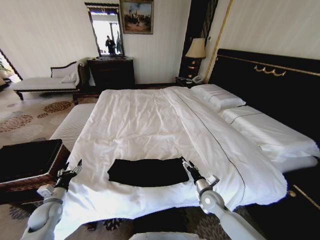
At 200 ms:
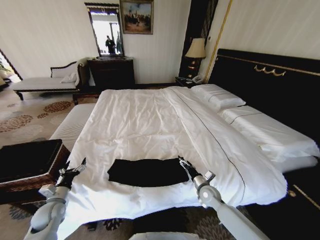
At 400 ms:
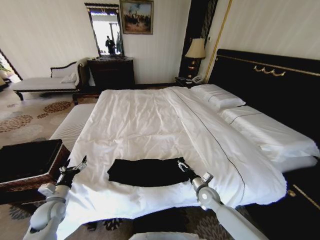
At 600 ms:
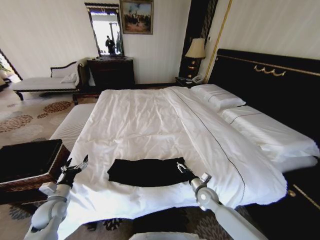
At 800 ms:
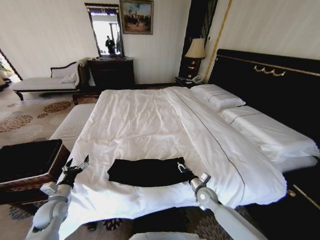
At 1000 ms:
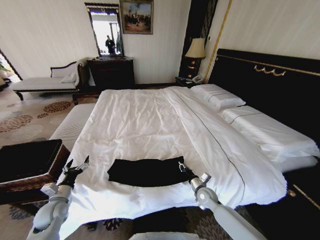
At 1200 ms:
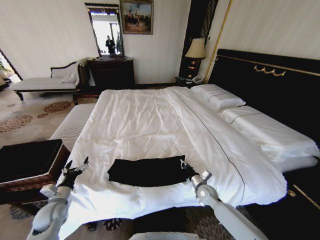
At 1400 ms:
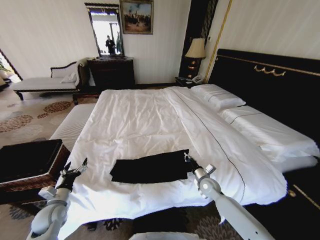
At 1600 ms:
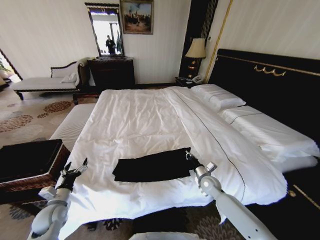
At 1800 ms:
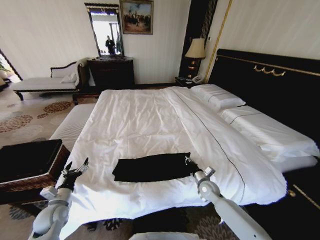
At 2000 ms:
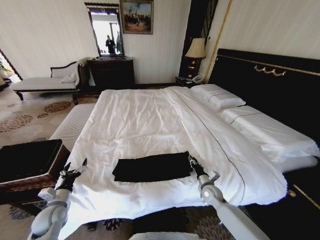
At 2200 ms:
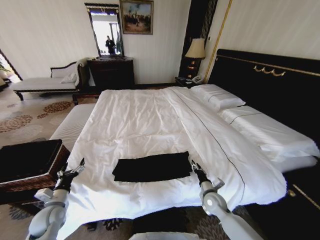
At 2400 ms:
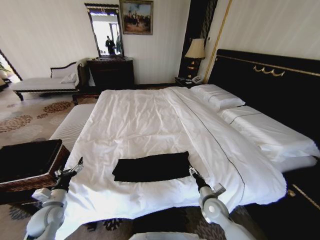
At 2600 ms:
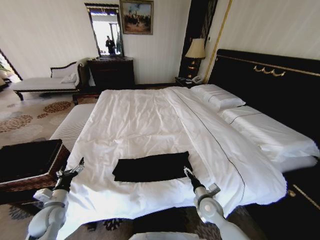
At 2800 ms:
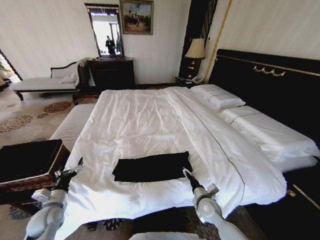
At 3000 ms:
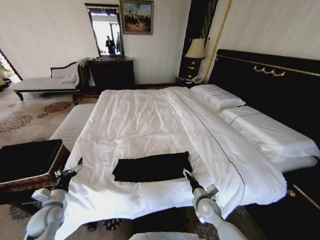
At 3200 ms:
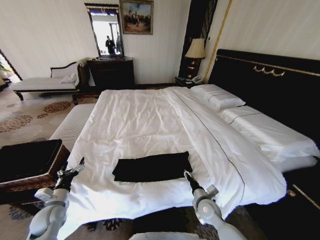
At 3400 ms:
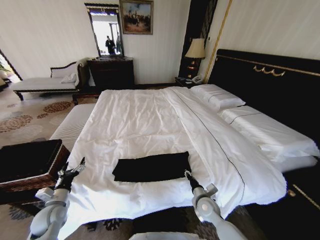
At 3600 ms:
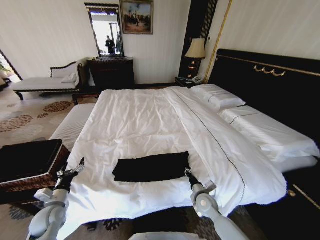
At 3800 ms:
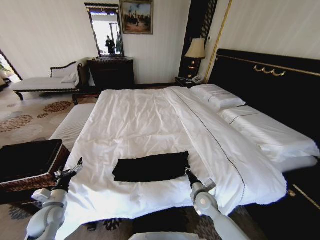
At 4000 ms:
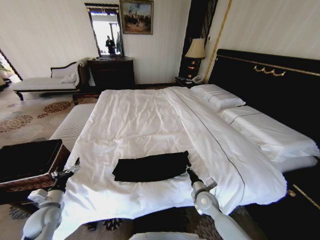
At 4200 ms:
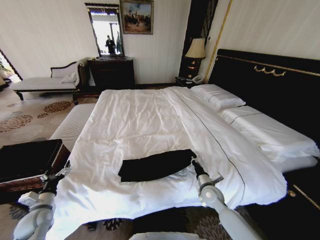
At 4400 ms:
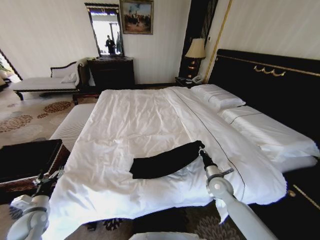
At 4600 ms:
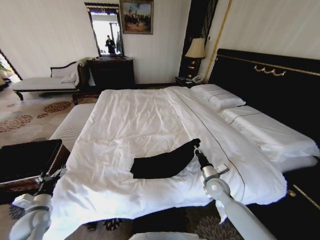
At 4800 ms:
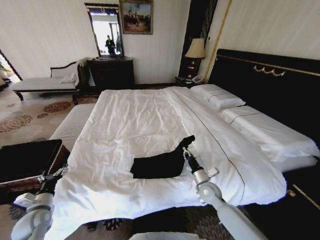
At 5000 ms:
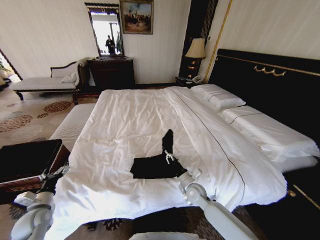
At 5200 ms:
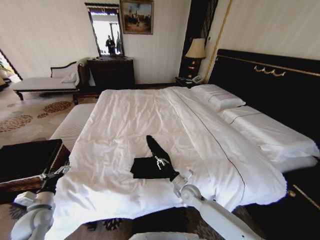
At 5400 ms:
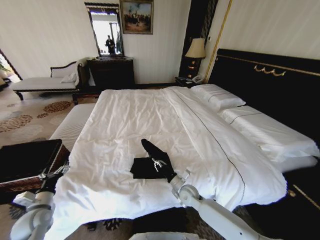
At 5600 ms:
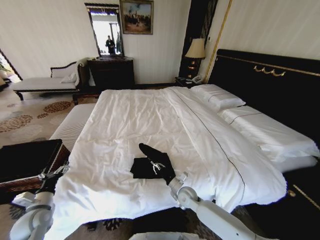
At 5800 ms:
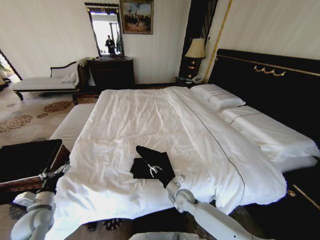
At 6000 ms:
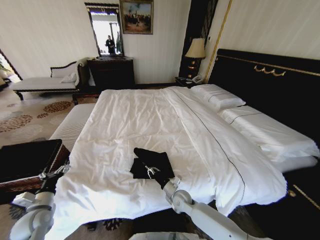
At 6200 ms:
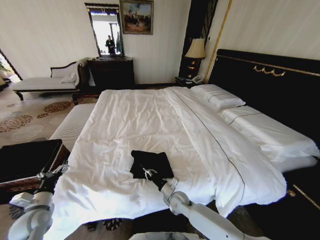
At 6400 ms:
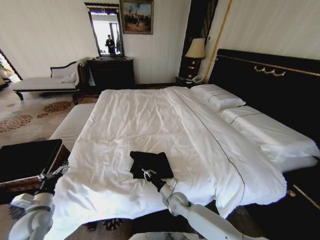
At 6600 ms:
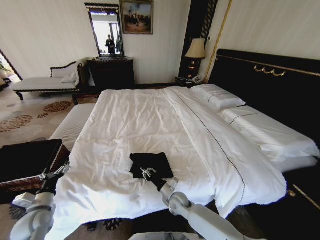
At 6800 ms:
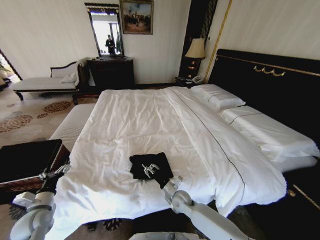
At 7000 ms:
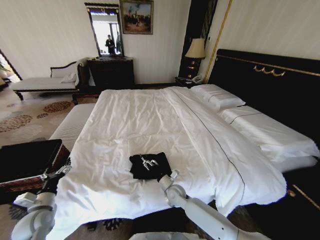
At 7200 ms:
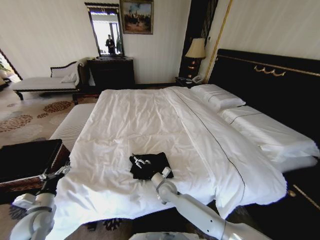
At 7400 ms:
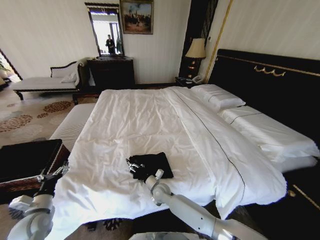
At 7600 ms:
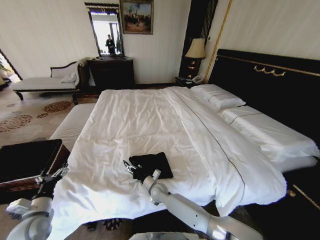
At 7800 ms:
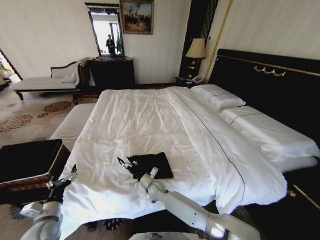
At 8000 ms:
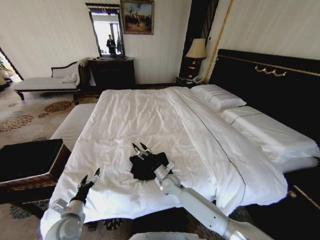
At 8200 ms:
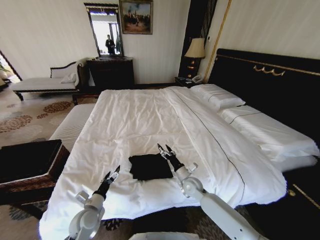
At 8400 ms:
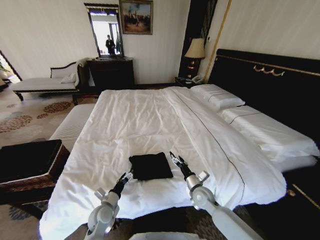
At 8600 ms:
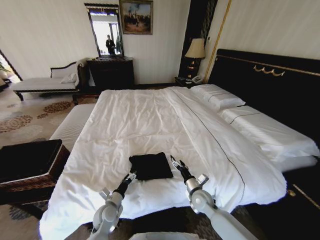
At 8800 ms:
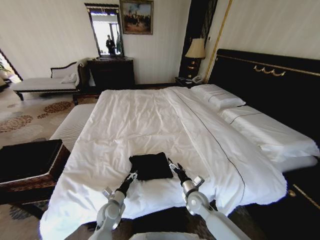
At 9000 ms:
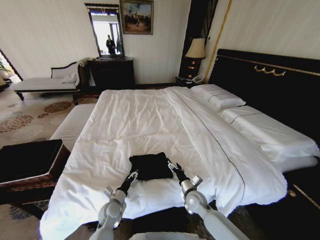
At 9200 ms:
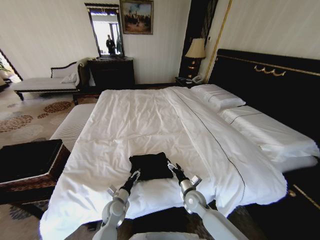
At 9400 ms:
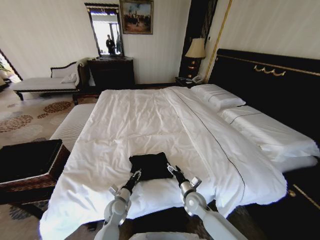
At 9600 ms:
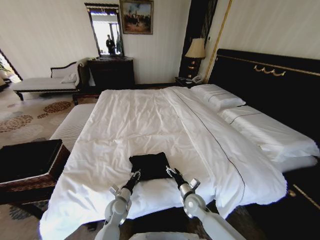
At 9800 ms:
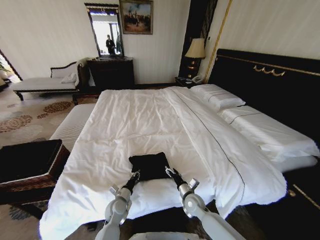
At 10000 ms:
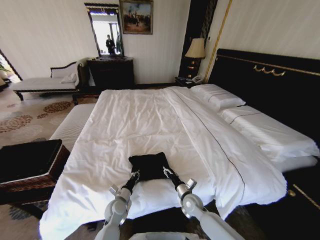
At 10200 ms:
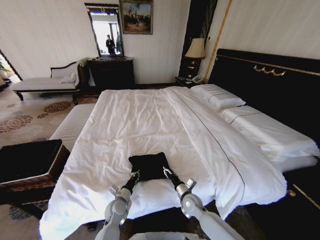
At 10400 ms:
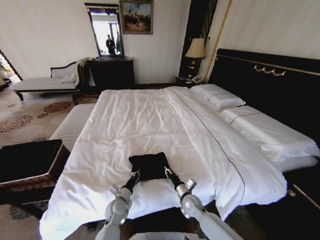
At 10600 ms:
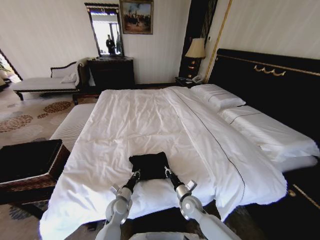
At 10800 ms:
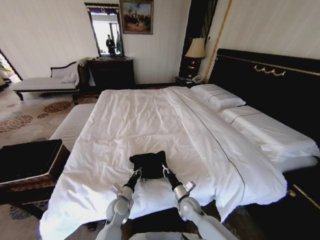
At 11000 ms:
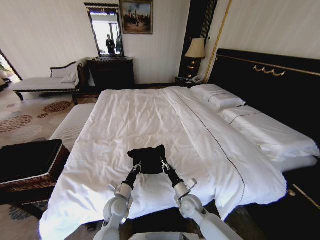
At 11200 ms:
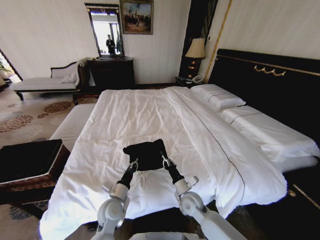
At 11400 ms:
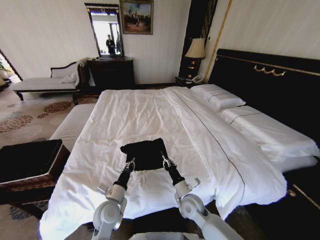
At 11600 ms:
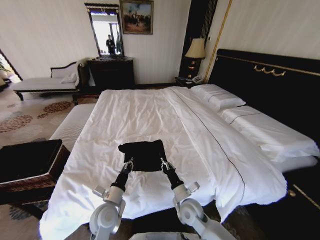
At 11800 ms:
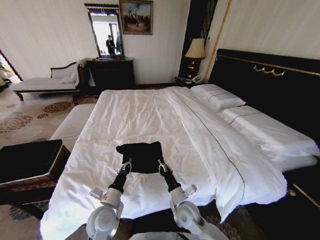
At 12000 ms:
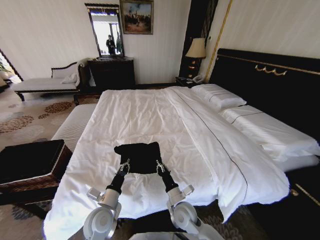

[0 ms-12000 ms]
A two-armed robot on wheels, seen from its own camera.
Task of the whole recording: Fold the clothes on the bed and place them into the basket.
0 ms to 1600 ms: The right gripper moves forward, about 10 cm, and closes up.
1600 ms to 3000 ms: The right gripper moves backward, some 10 cm, and opens.
3000 ms to 4400 ms: The right gripper moves upward, forward and to the right, roughly 10 cm, and closes its fingers. The left gripper is displaced to the left by about 5 cm.
4400 ms to 6000 ms: The left gripper moves about 5 cm. The right gripper moves to the left and downward, roughly 20 cm.
6000 ms to 7600 ms: The right gripper goes some 10 cm to the left, and opens its fingers.
7600 ms to 9000 ms: The left gripper goes approximately 25 cm to the right and downward. Meanwhile the right gripper moves to the right, roughly 15 cm.
9000 ms to 10400 ms: The left gripper closes up; the right gripper closes.
10400 ms to 12000 ms: The left gripper goes roughly 15 cm upward and backward. The right gripper shifts approximately 10 cm upward, to the left and backward.

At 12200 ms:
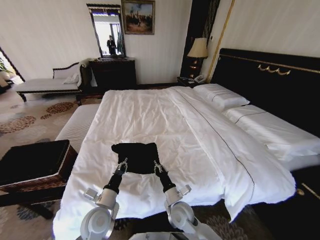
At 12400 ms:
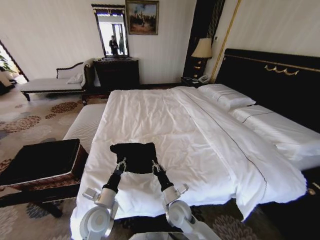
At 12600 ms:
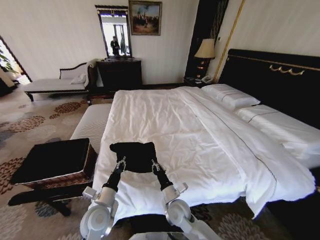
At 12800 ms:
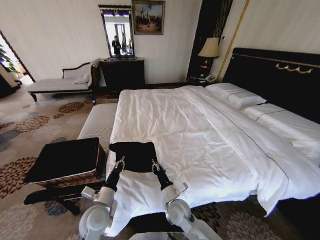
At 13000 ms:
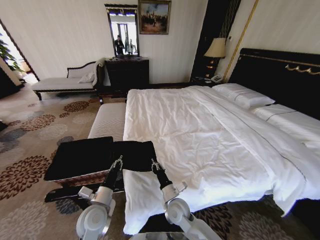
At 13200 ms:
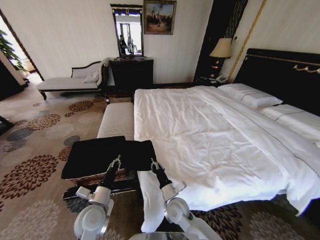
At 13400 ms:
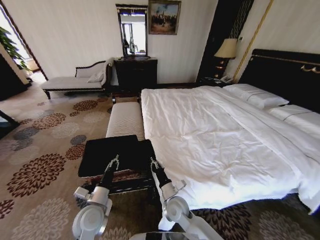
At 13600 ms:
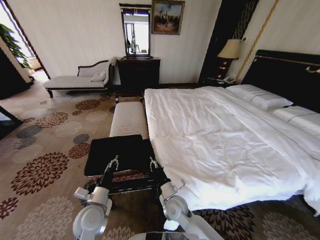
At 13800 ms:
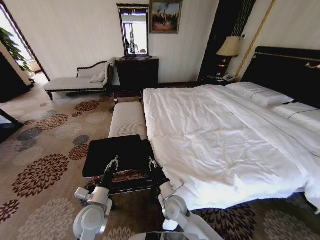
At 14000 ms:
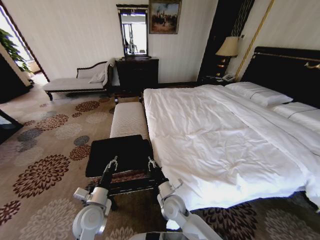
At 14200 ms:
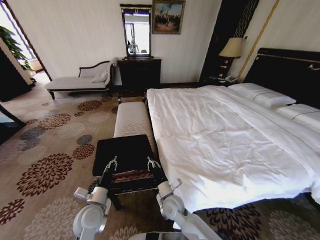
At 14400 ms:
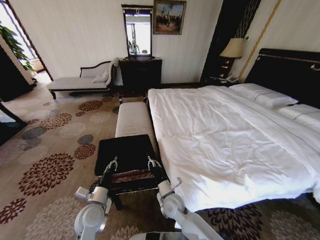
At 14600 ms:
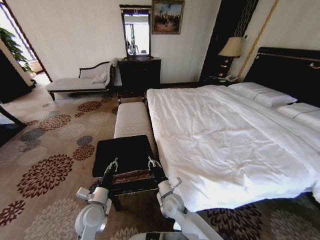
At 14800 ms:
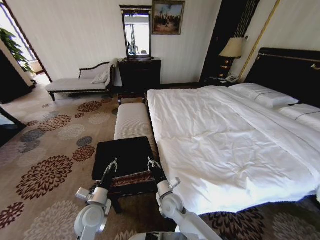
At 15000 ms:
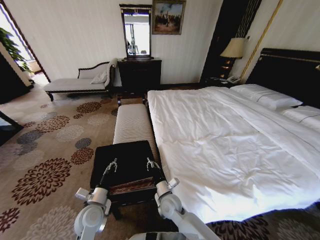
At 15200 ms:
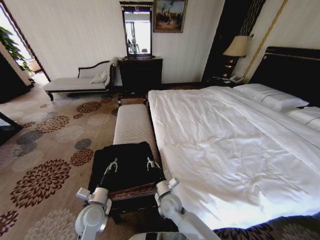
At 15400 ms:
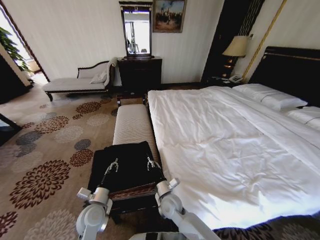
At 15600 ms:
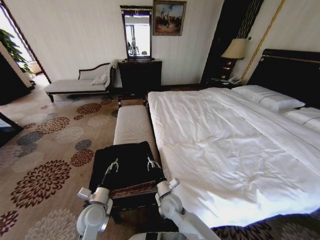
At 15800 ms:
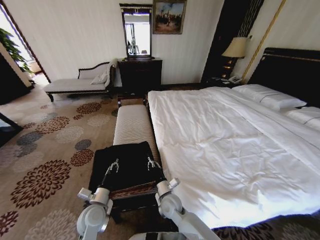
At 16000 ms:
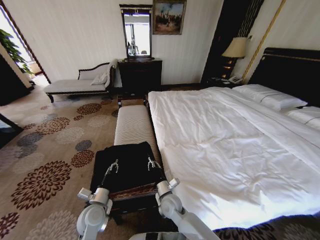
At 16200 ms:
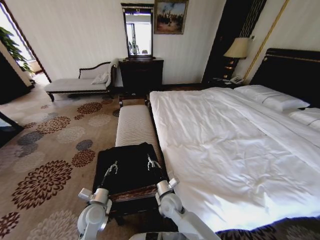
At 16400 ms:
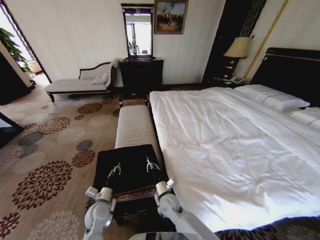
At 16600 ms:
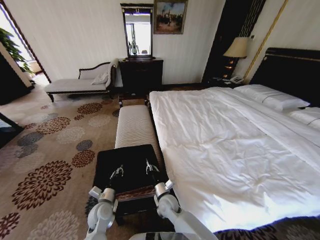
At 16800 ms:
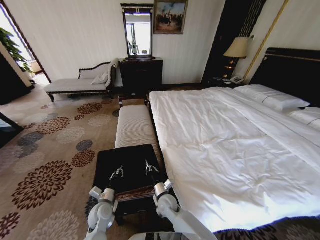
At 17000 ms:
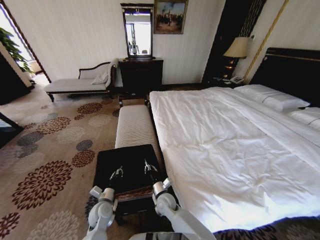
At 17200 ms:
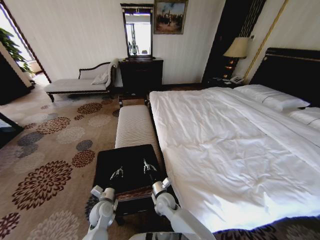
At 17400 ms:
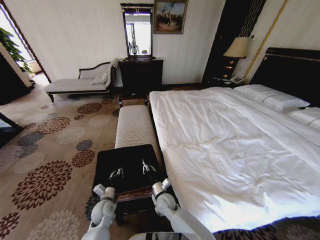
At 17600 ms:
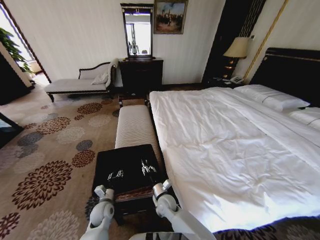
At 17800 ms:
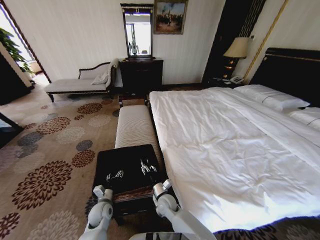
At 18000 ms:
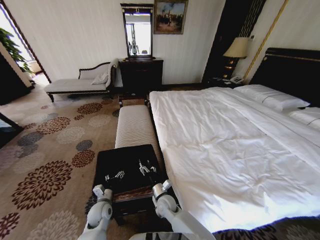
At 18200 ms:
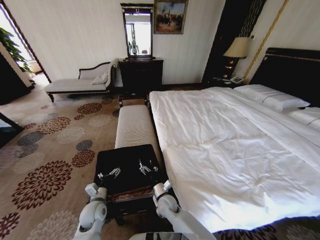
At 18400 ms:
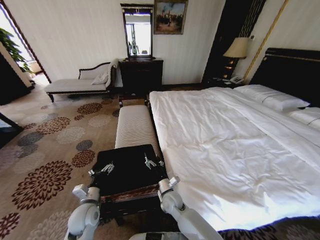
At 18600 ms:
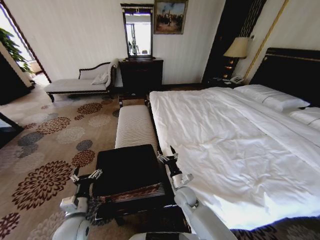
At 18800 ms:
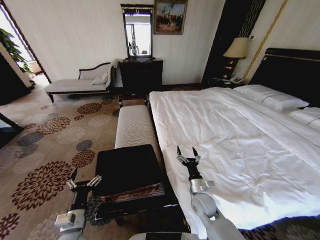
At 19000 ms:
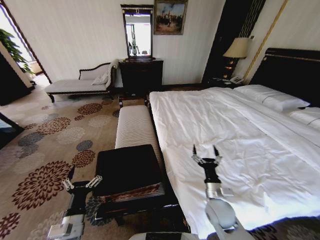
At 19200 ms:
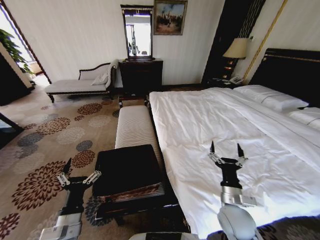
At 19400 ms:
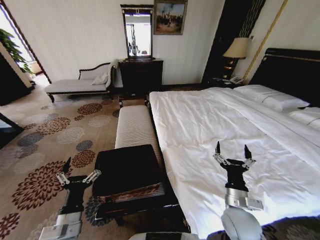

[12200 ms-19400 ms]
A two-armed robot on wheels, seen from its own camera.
Task of the whole recording: Fold the clothes on the bed and place them into the basket.
15000 ms to 16600 ms: The left gripper goes some 5 cm downward.
16600 ms to 18000 ms: The left gripper opens. The right gripper opens up.
18000 ms to 19400 ms: The right gripper moves to the right, upward and backward, some 30 cm, while the left gripper goes roughly 20 cm upward and backward.
